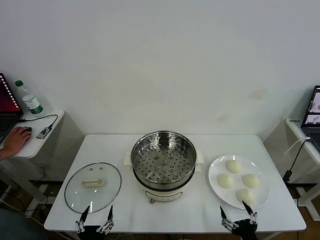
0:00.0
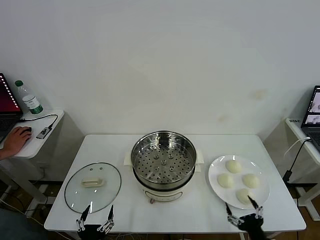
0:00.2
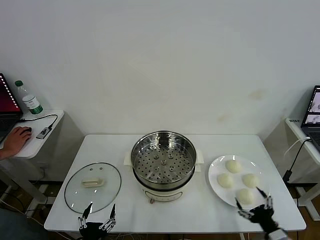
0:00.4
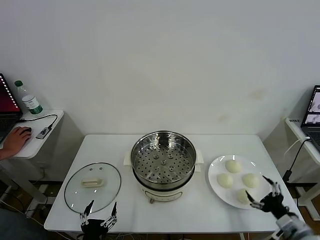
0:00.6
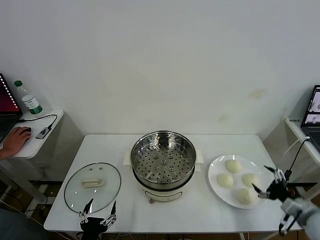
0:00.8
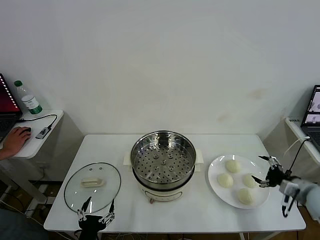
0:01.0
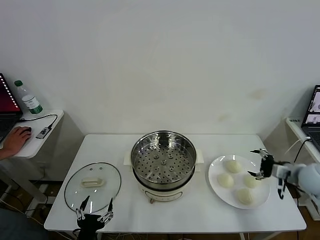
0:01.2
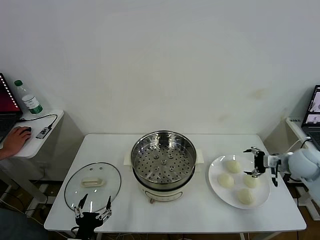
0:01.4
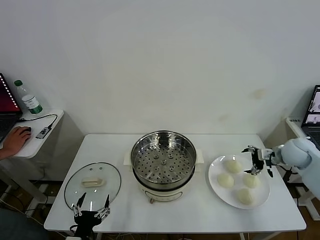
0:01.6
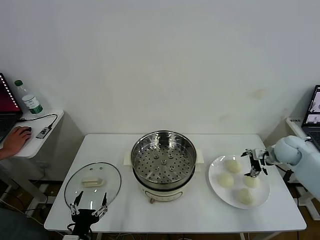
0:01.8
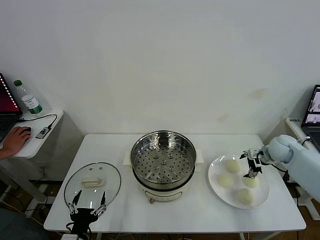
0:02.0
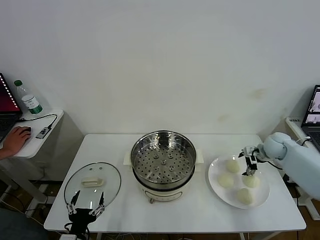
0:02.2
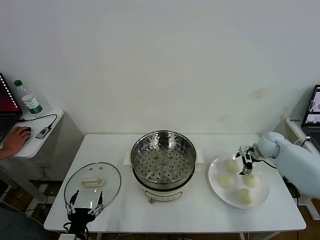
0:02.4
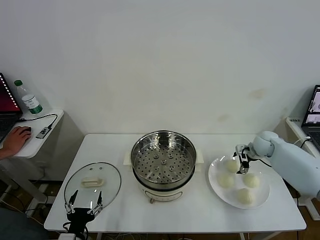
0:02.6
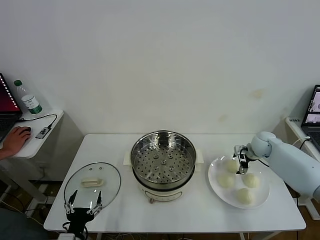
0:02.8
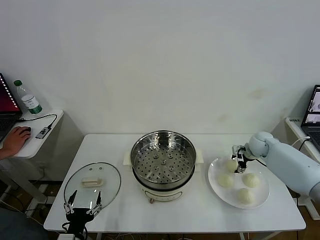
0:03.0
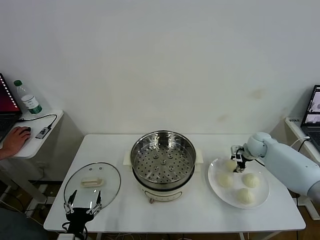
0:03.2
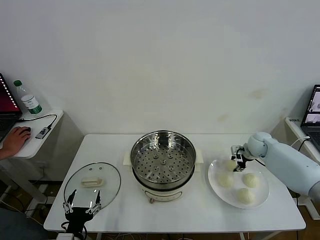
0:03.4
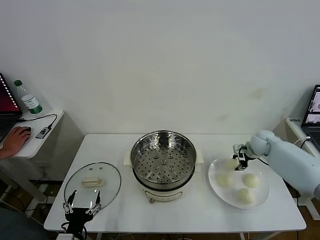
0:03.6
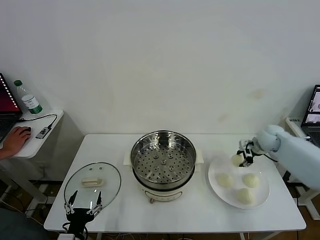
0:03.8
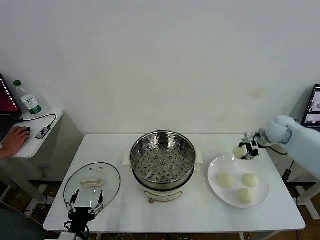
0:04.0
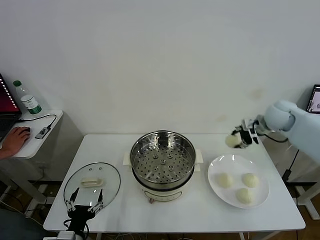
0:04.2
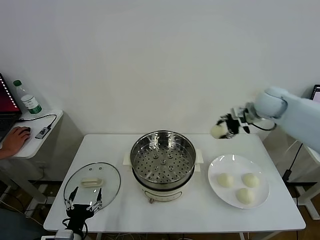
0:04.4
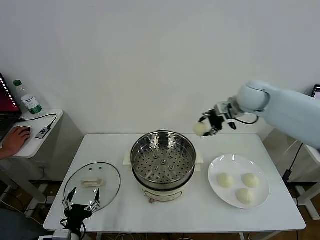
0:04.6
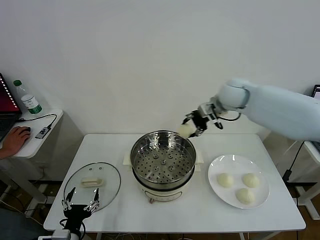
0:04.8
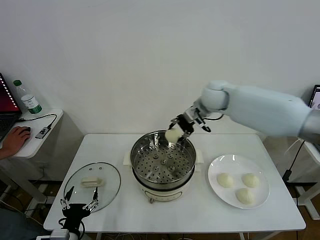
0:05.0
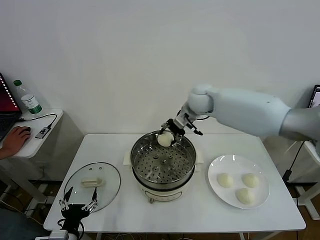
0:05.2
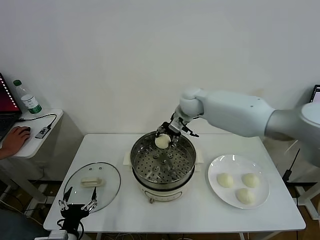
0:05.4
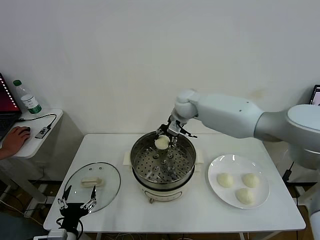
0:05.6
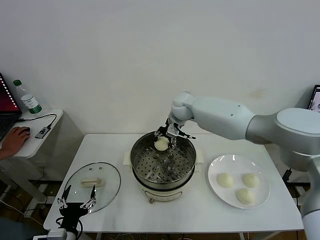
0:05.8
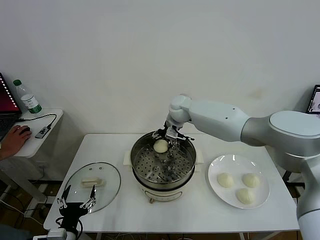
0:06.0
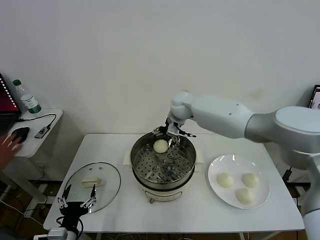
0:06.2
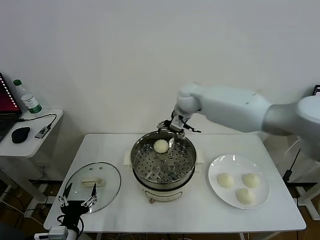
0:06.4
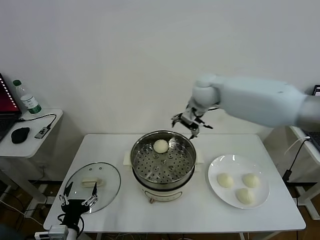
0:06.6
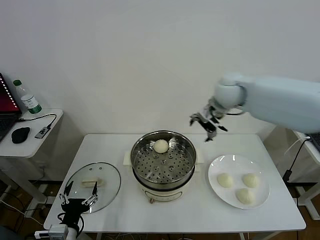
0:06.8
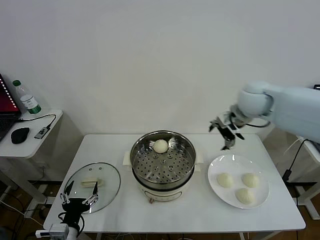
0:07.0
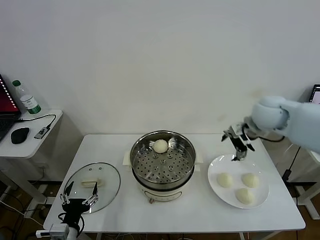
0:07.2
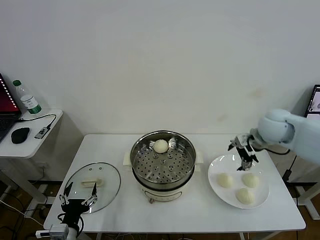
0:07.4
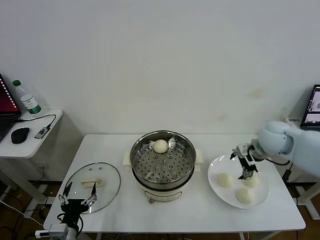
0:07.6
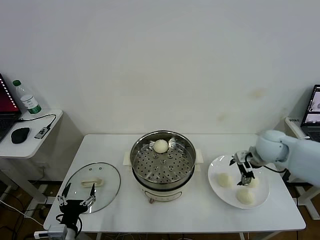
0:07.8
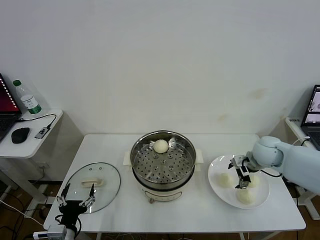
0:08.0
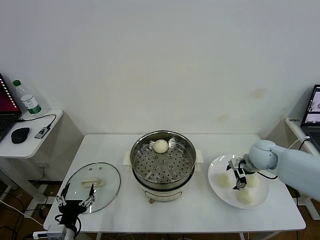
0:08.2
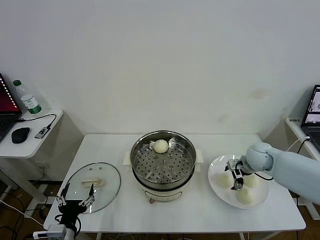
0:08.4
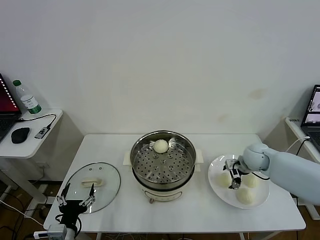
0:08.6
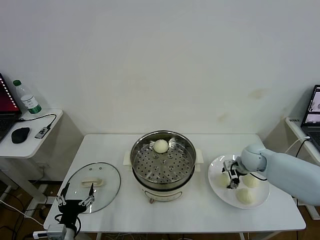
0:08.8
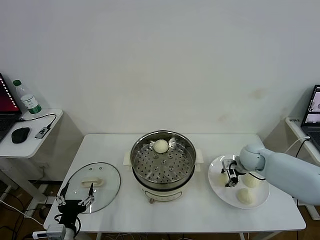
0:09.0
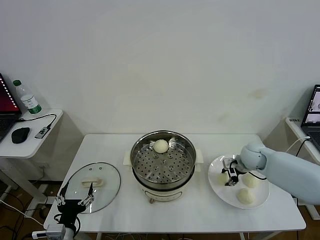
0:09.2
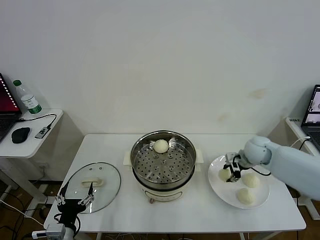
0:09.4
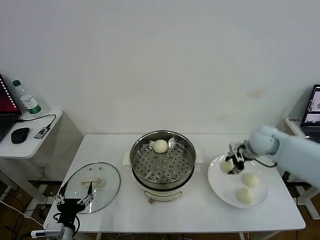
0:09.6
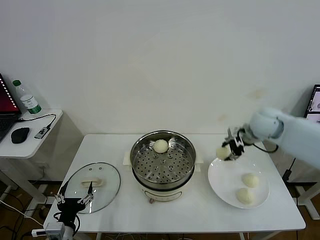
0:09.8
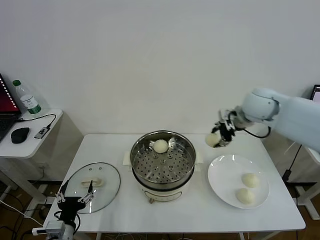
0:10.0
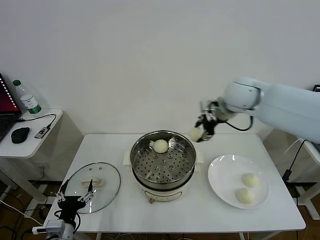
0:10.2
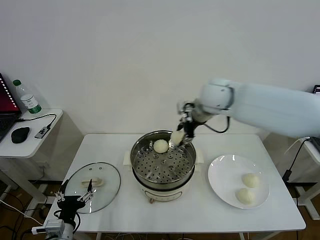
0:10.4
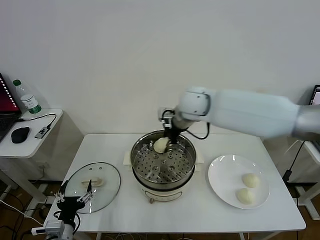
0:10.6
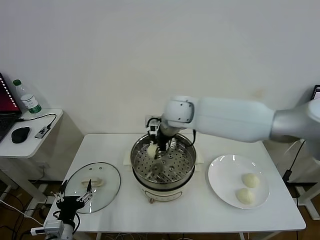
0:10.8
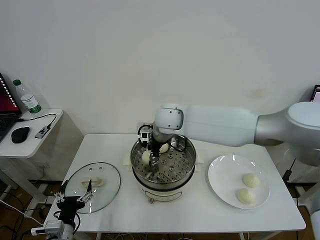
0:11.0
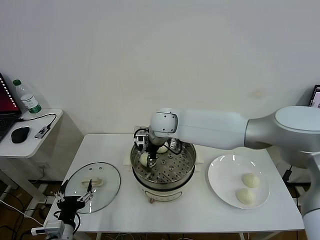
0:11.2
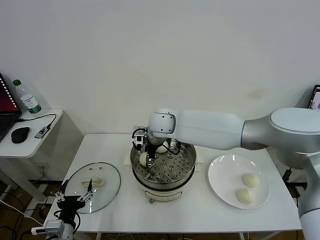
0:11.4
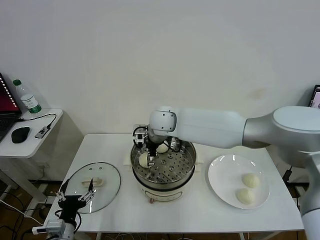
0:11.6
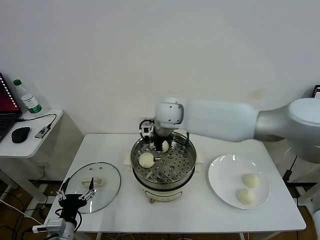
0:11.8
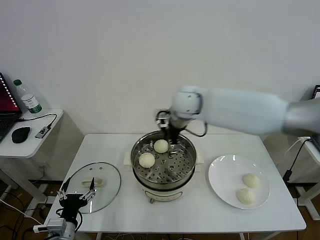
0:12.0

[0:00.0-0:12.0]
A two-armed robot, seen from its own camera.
Task of the whole recording: take steamed baozi put them in steamer then cover it.
Step, 0:00.0 to 0:03.2: Grasp the baozi in the plate with right gripper.
Step, 0:03.4 to 0:06.2: Place the baozi on the steamer with right gripper.
Step, 0:06.4 to 0:09.0: Grasp the baozi in the plate with right gripper.
Step, 0:09.2 to 0:11.6: Place the baozi on the steamer with right gripper.
0:01.6 to 0:03.0: The right gripper travels forward, downward and to the left by roughly 10 cm, and closes up.
0:03.0 to 0:04.4: The right gripper is displaced upward and to the left by some 25 cm, and closes.
0:04.4 to 0:06.0: The right gripper goes about 25 cm to the left, and opens up.
0:06.0 to 0:07.6: The right gripper goes some 30 cm to the right and backward.
0:07.6 to 0:09.0: The right gripper shifts about 10 cm downward, and closes up.
0:09.0 to 0:10.4: The right gripper goes roughly 30 cm upward and to the left.
0:10.4 to 0:12.0: The right gripper goes to the left and returns, some 15 cm each way, and opens.

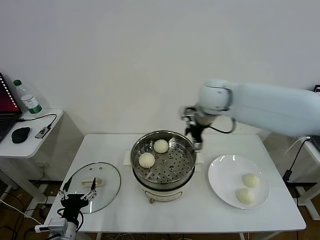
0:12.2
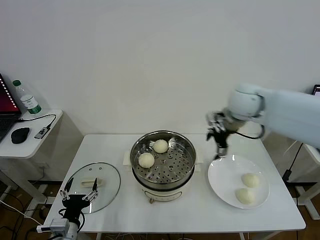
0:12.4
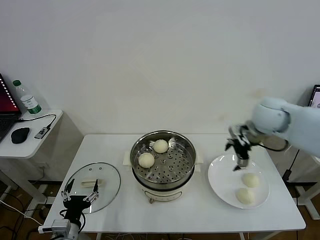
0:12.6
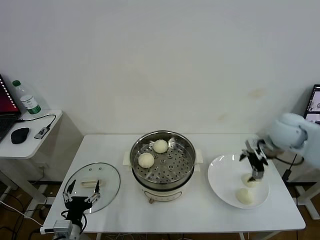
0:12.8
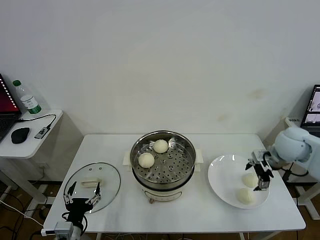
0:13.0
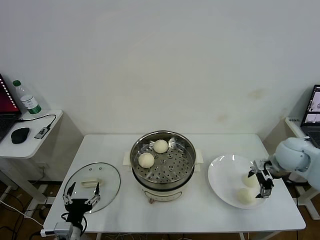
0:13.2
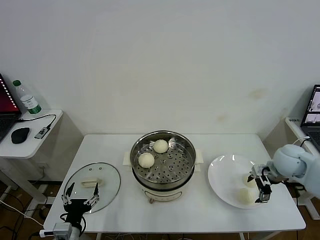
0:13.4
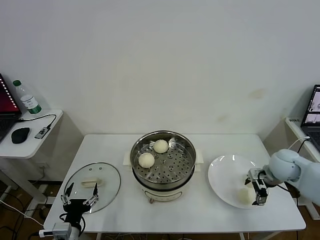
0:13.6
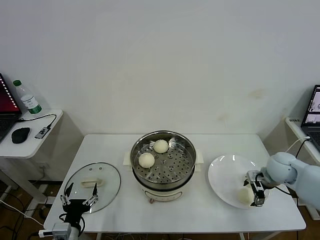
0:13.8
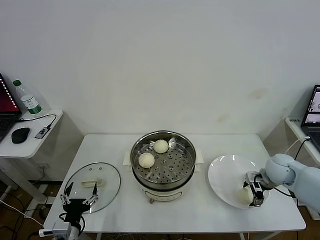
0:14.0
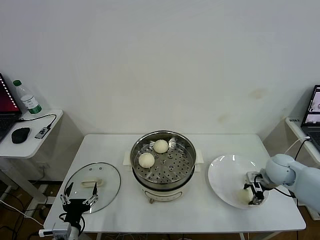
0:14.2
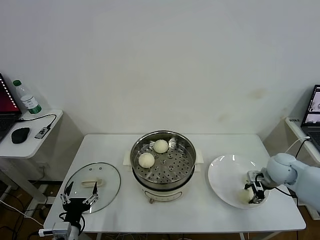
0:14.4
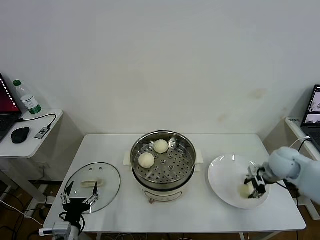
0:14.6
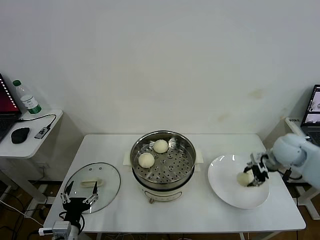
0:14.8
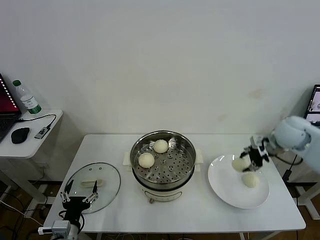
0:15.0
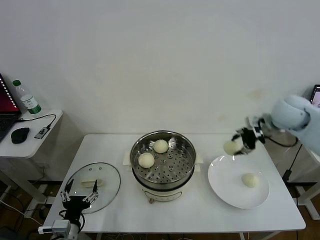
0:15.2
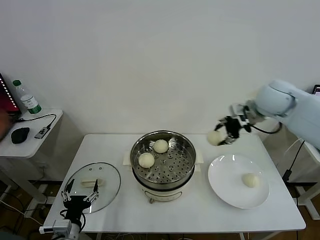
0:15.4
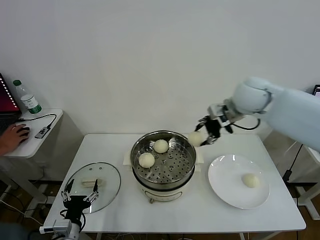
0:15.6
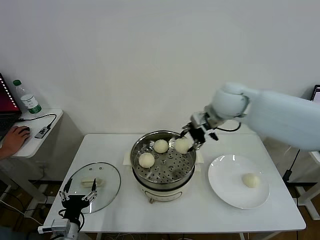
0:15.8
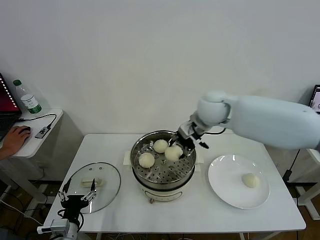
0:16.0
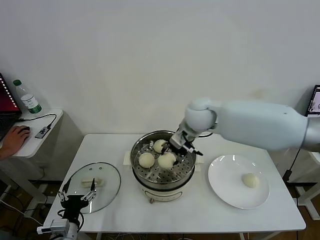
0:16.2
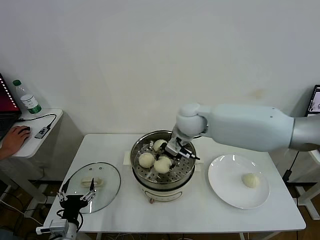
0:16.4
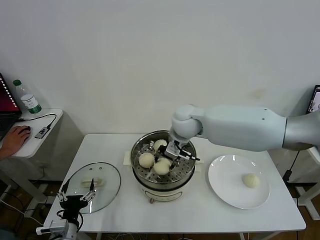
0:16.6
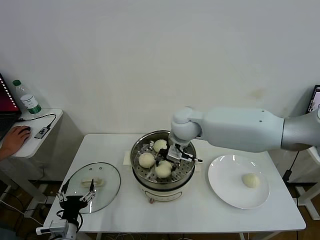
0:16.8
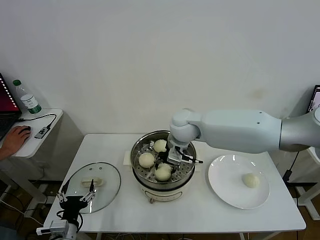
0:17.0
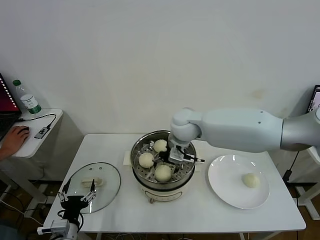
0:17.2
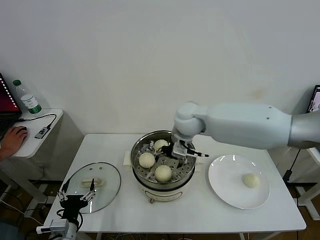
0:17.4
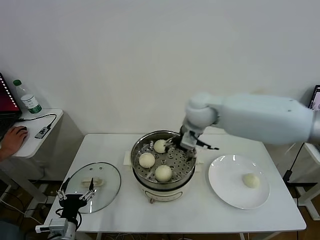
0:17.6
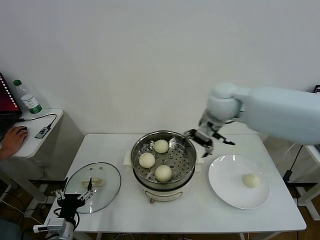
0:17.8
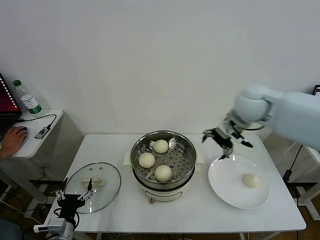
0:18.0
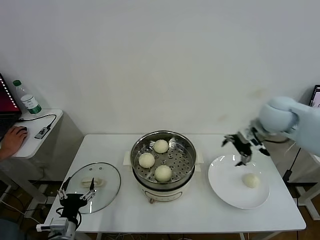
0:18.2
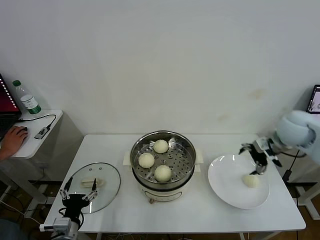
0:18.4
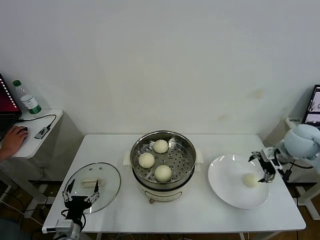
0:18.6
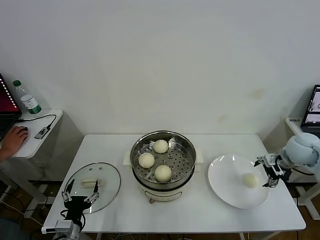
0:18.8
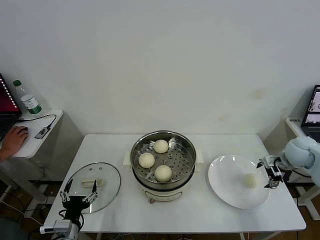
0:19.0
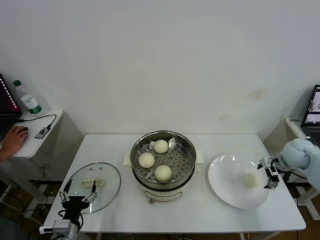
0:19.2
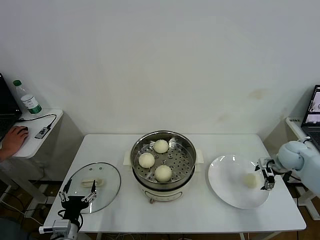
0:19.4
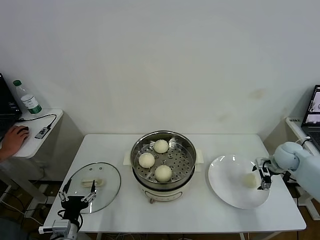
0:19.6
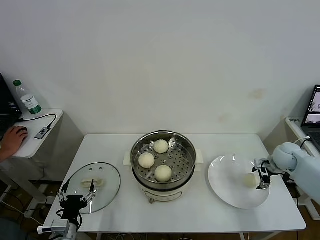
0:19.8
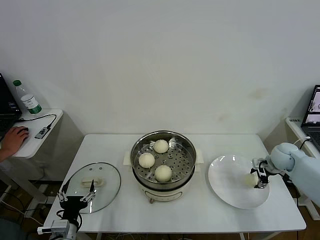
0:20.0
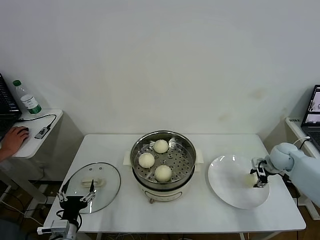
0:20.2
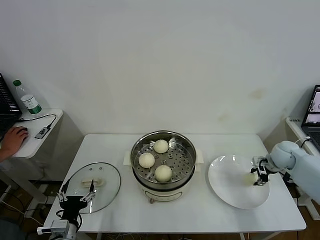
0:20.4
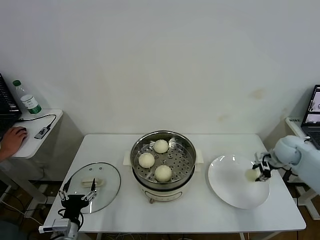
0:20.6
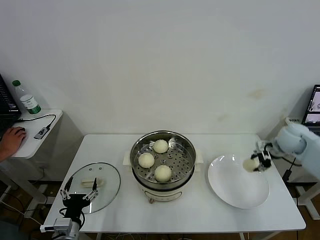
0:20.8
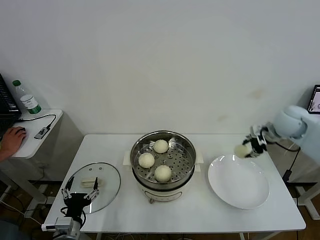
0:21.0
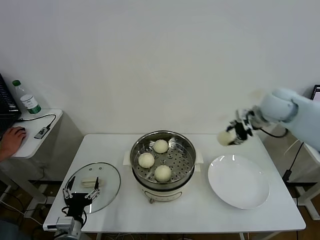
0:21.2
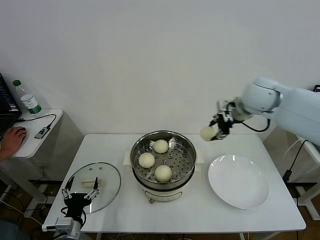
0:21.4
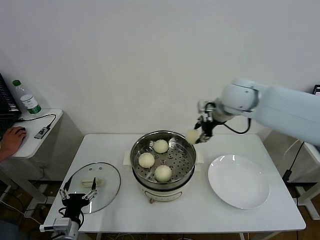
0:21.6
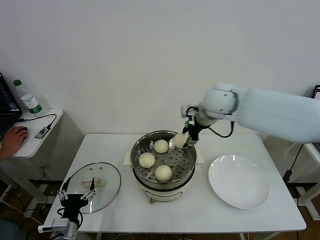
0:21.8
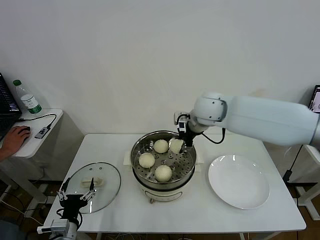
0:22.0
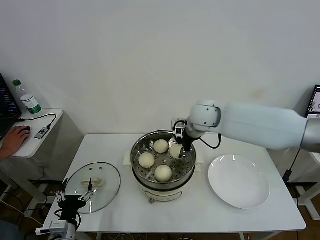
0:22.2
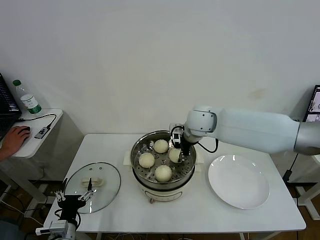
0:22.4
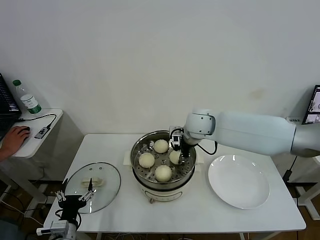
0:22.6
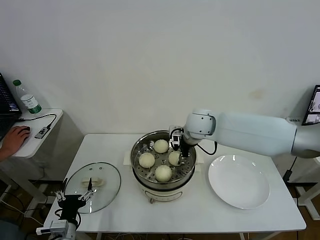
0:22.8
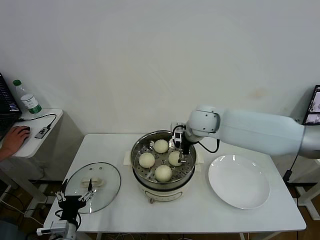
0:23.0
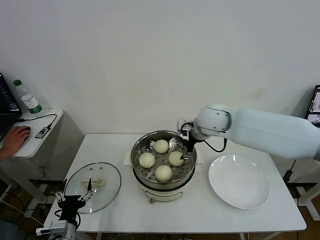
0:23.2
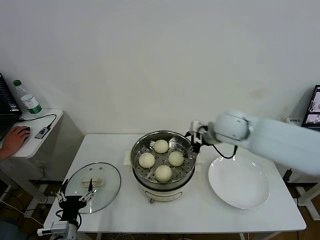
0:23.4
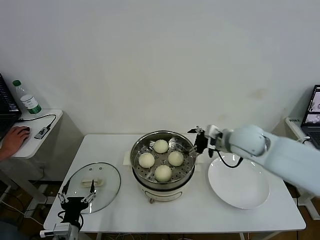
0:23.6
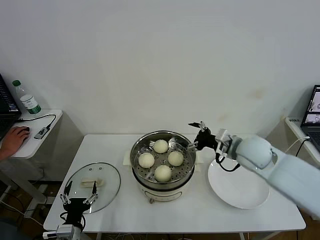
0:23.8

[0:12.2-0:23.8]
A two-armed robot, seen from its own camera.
Task of the whole recording: take steamed baozi put them in steamer then cover it.
Step, 0:12.2 to 0:14.4: Grasp the baozi in the plate with right gripper.
Step, 0:14.6 to 0:17.2: Place the baozi on the steamer with right gripper.
Step, 0:17.4 to 0:20.0: Grasp the baozi in the plate with right gripper.
Step, 0:20.2 to 0:23.2: Place the baozi on the steamer with right gripper.
0:12.2 to 0:13.6: The right gripper travels to the right, downward and backward by some 30 cm.
0:13.6 to 0:15.0: The right gripper is displaced upward by roughly 10 cm, and closes its fingers.
0:15.0 to 0:16.6: The right gripper shifts approximately 30 cm to the left.
0:16.6 to 0:18.0: The right gripper travels to the right by some 20 cm, and opens up.
0:18.0 to 0:19.4: The right gripper heads to the right and downward, covering some 30 cm.
0:19.4 to 0:21.0: The right gripper is displaced upward and to the left by about 15 cm, and closes its fingers.
0:21.0 to 0:22.4: The right gripper shifts about 30 cm to the left.
0:22.4 to 0:23.8: The right gripper travels to the right and backward by roughly 15 cm, and opens its fingers.
